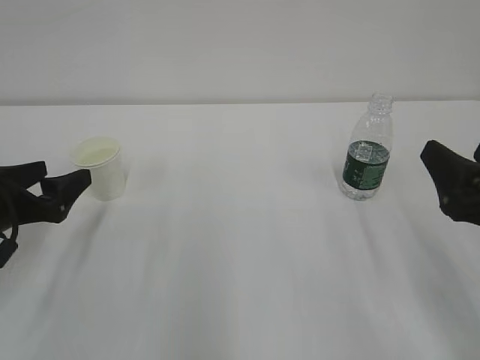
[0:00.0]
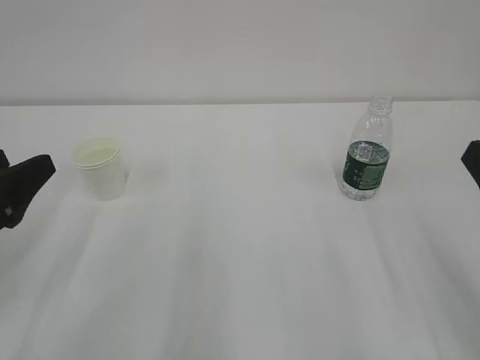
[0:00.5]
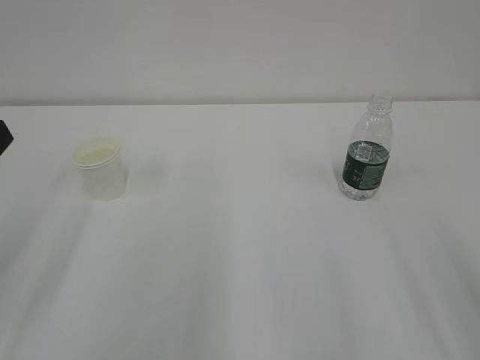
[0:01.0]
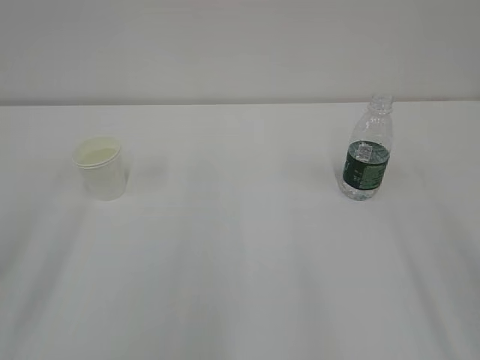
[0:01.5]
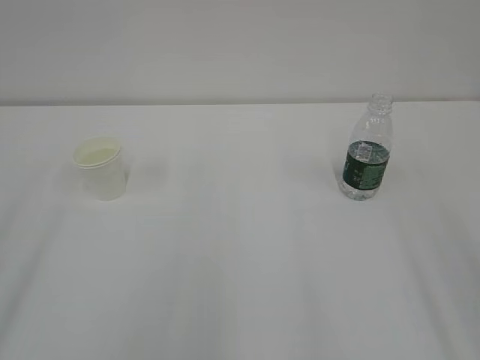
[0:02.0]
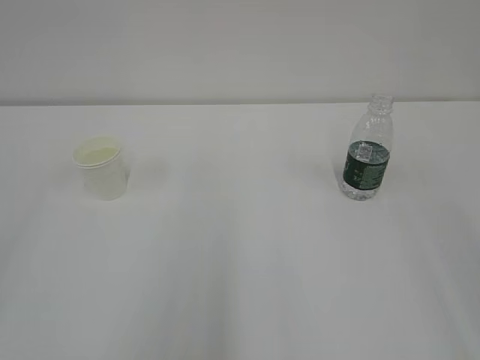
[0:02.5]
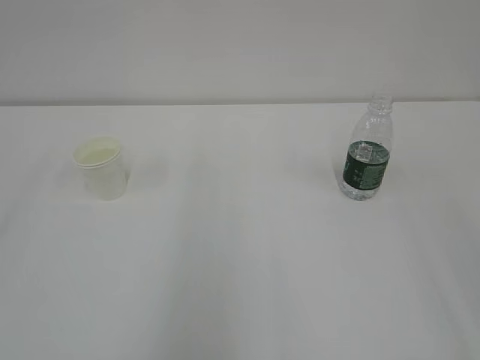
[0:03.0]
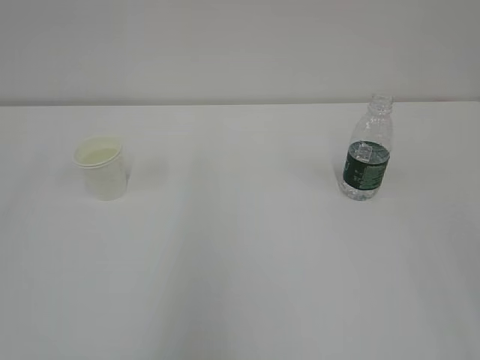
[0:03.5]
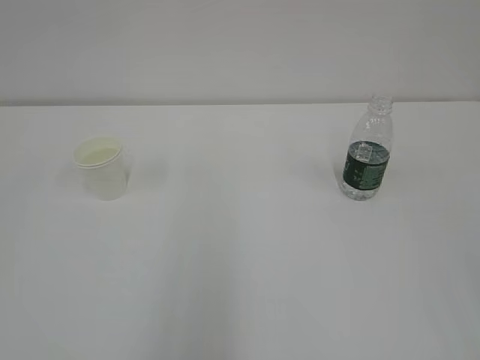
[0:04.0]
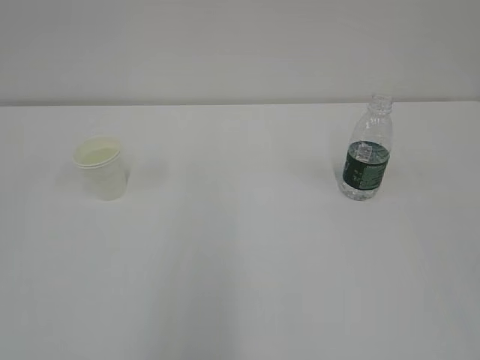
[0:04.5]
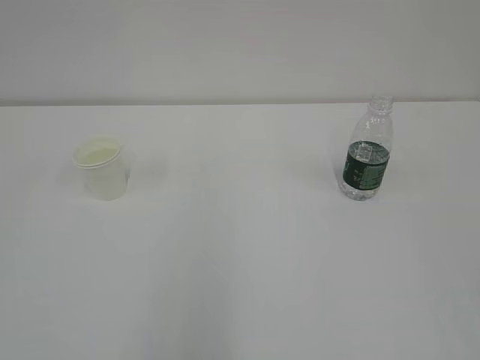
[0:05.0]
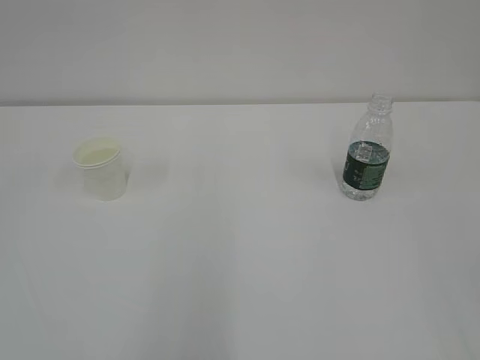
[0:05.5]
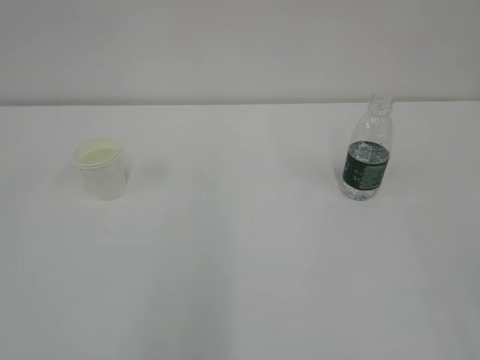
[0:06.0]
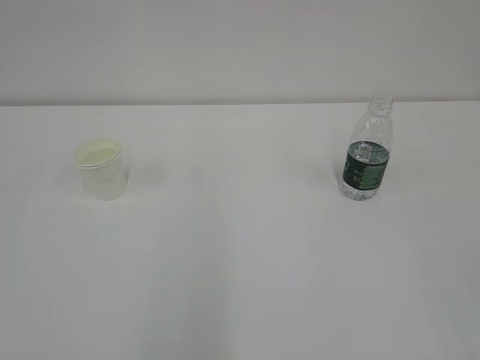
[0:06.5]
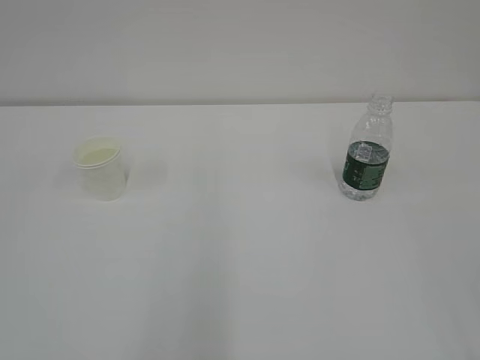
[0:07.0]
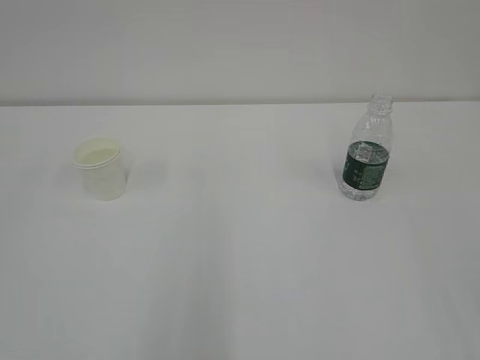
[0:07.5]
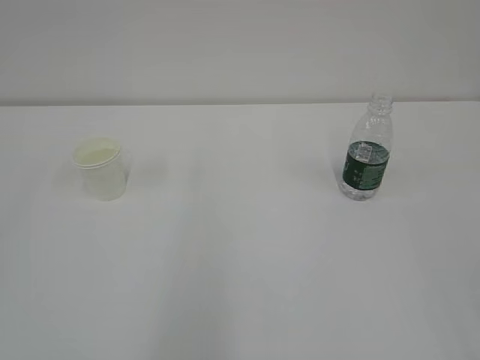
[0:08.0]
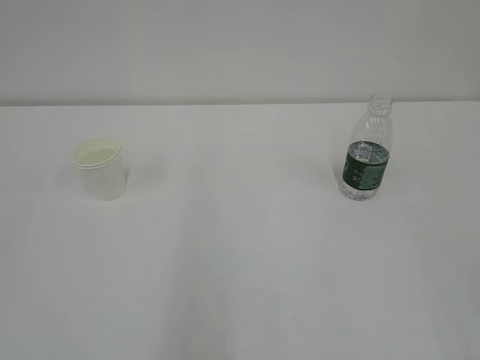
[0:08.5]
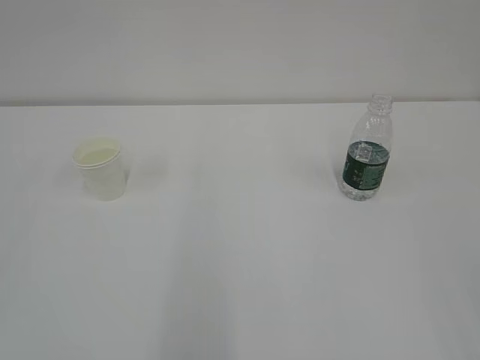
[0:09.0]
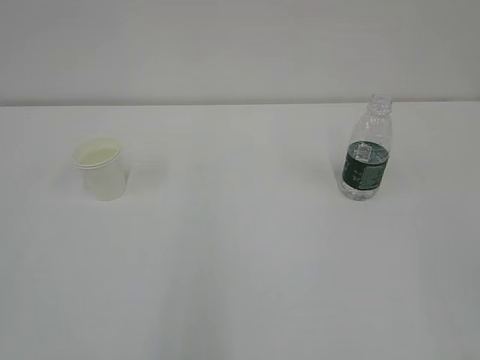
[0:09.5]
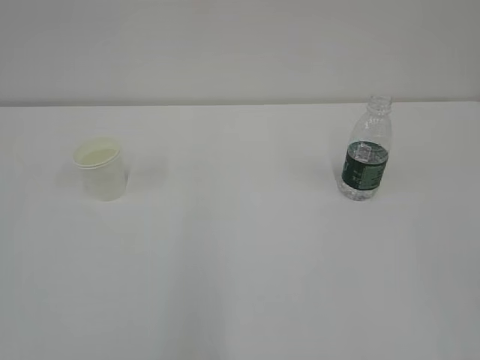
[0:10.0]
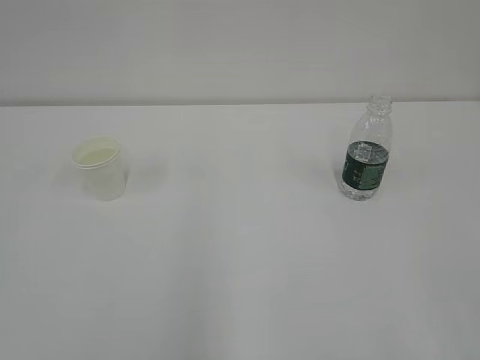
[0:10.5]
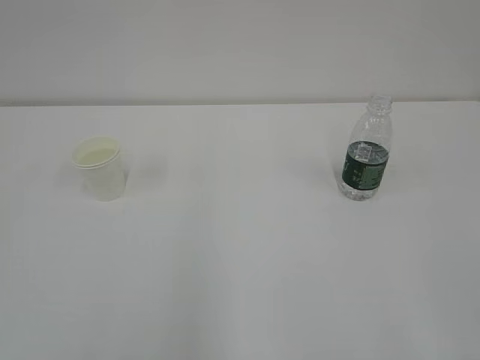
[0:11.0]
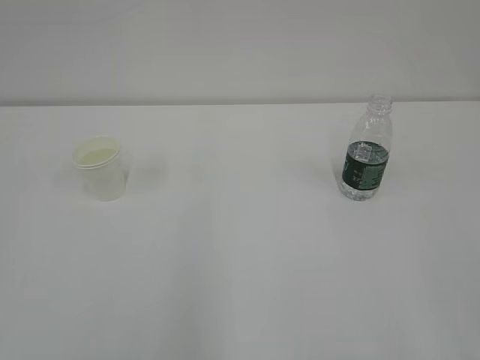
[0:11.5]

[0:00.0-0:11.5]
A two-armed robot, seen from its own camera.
0:00.0 to 0:02.0: The left gripper heads backward and upward, covering approximately 25 cm, and closes up; the right gripper moves upward and backward, about 20 cm.
